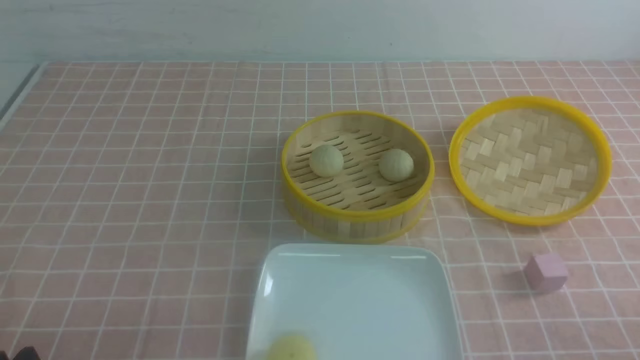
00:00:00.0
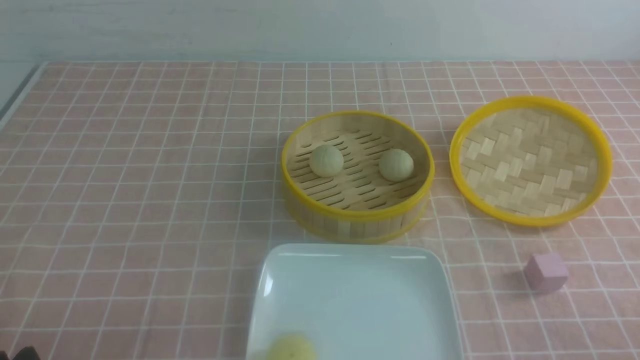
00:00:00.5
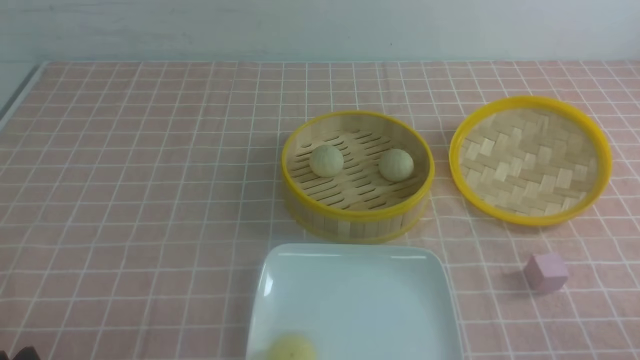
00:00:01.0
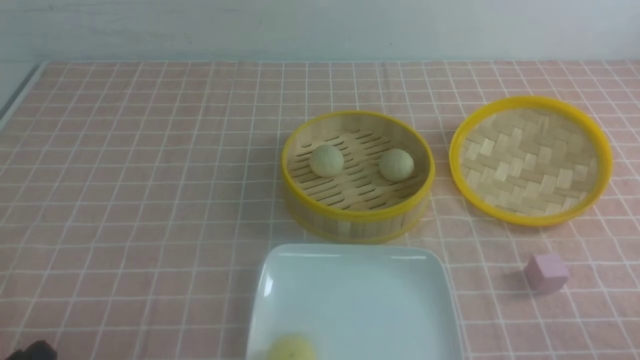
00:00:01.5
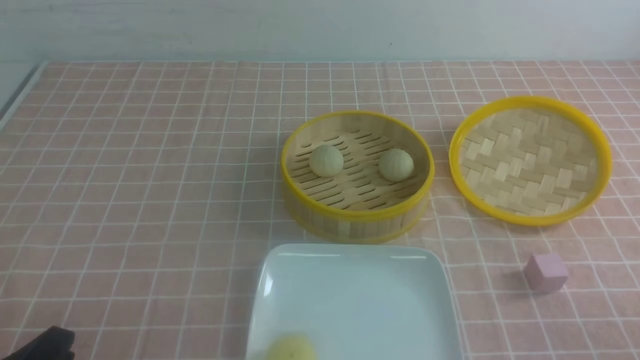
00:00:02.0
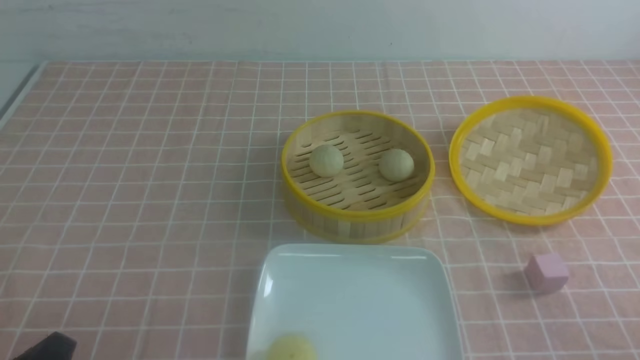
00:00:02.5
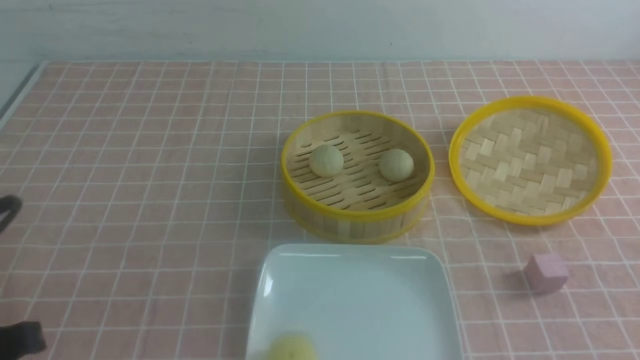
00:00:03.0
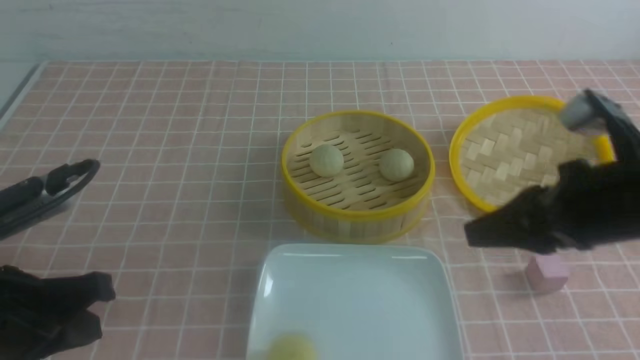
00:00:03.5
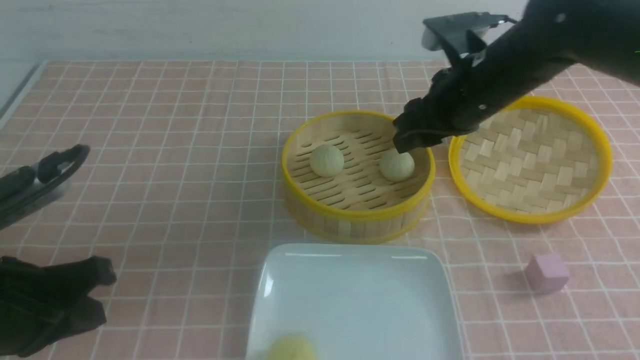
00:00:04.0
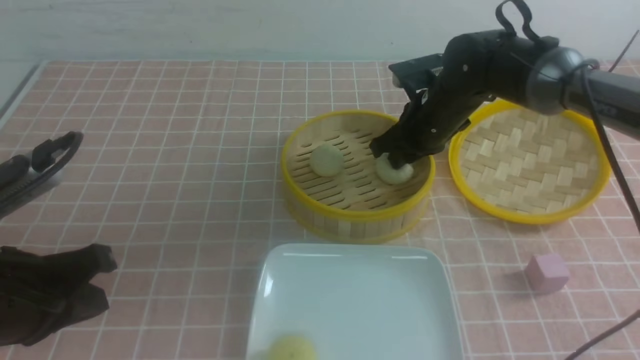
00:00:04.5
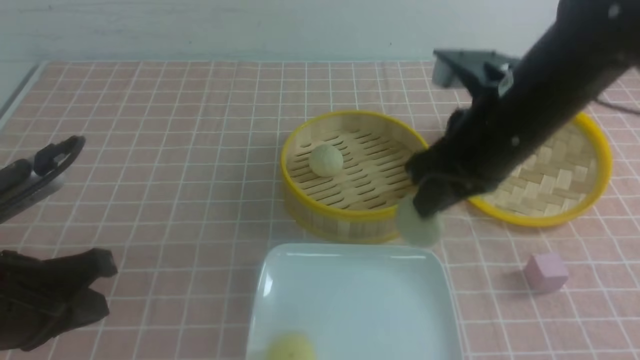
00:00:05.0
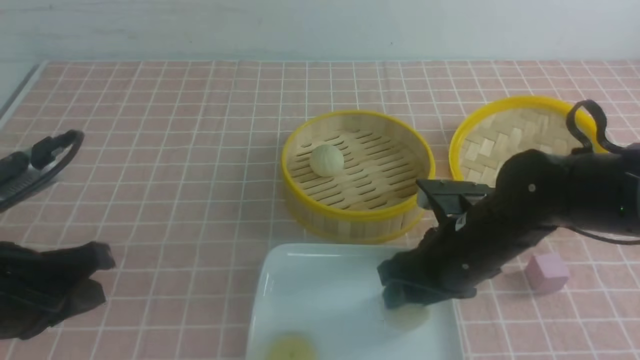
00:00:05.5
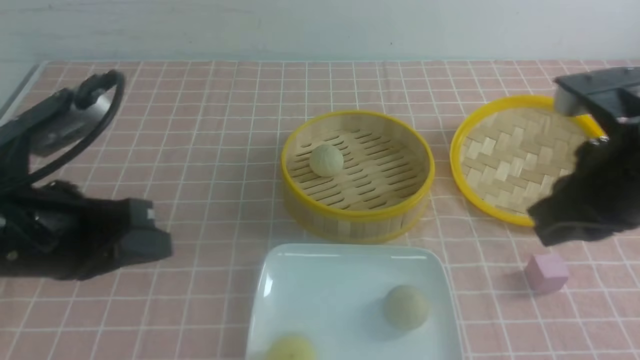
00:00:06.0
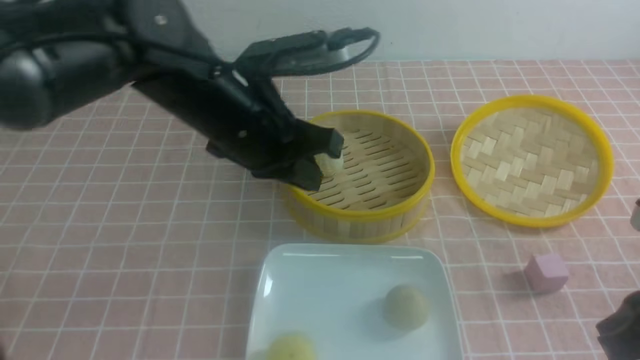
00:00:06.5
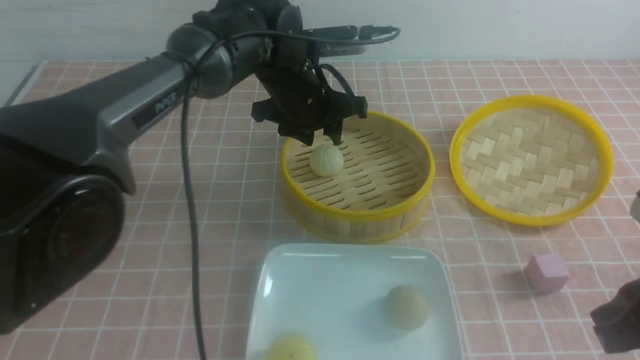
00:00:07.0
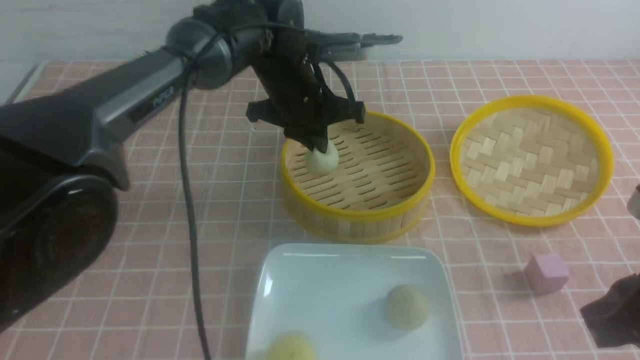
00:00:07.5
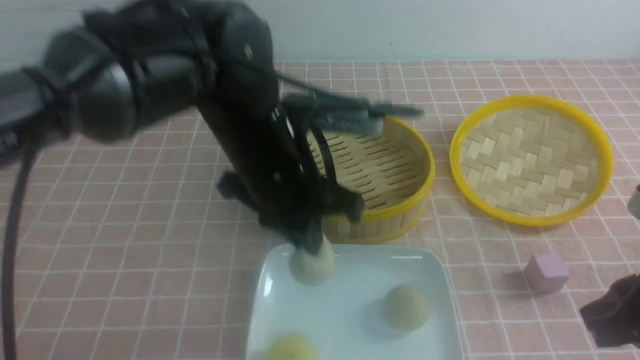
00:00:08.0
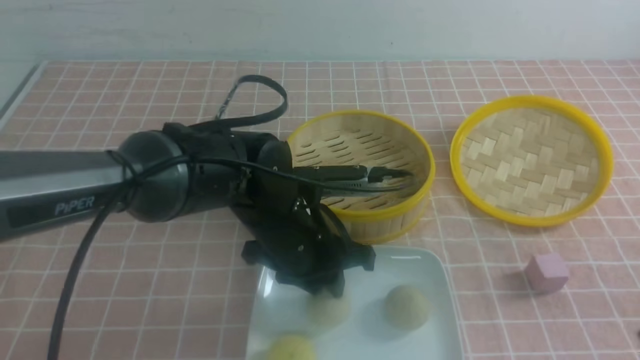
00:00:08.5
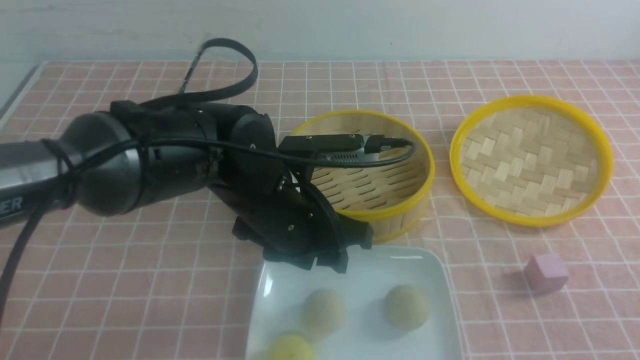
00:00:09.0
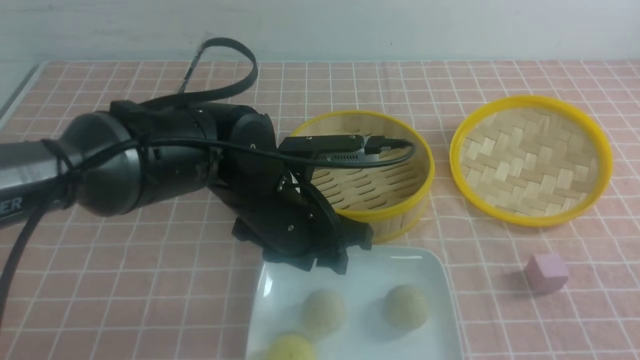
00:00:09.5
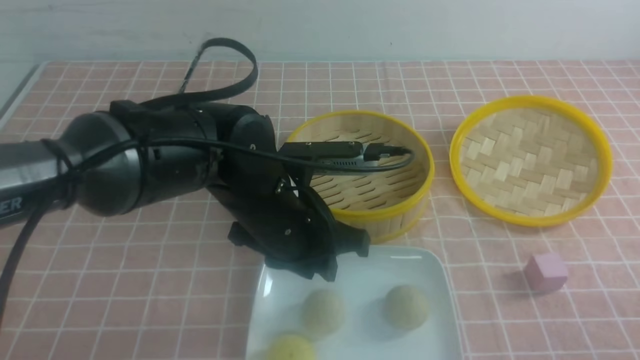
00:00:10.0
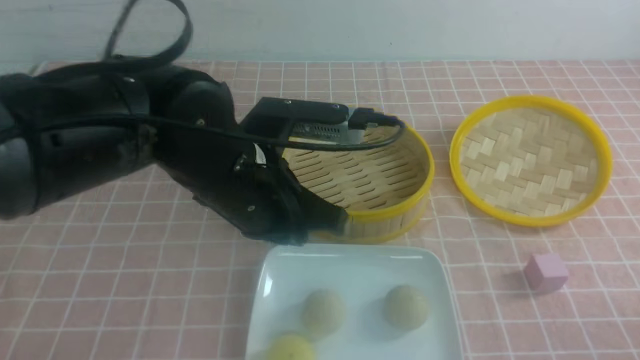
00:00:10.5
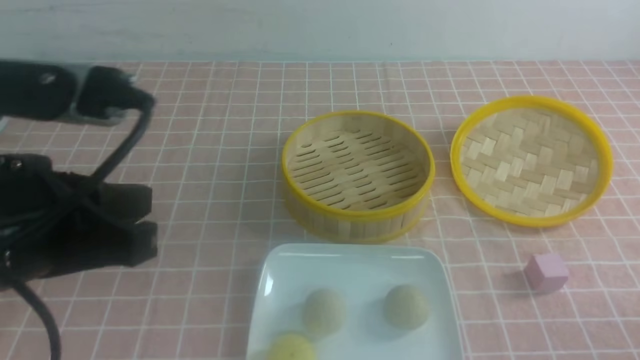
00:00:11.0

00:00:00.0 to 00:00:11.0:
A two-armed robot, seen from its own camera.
Step, 00:00:00.0 to 00:00:04.0: use the right arm to grab the steamed stuffed bun that is closest to it.
Step, 00:00:04.5 to 00:00:05.5: use the right arm to put the steamed stuffed bun into the plate.
Step, 00:00:06.0 to 00:00:07.0: use the left arm to grab the steamed stuffed bun that is closest to it.
Step, 00:00:07.5 to 00:00:08.5: use the left arm to put the steamed stuffed bun into the plate.
00:00:02.0 to 00:00:03.5: The right gripper is displaced forward, upward and to the left by roughly 25 cm, and closes, then reopens. Meanwhile the left gripper is displaced forward and upward by roughly 10 cm, and closes up.
00:00:03.5 to 00:00:05.5: The right gripper moves downward and to the left, some 15 cm, goes forward and returns, some 20 cm each way, and opens.
00:00:05.5 to 00:00:07.5: The right gripper heads backward, to the right and upward, covering about 20 cm, and closes up, while the left gripper heads forward and to the right, covering about 30 cm, and opens, then closes again.
00:00:07.5 to 00:00:09.0: The right gripper moves backward, roughly 10 cm; the left gripper is displaced backward and downward by about 15 cm, and opens up.
00:00:09.0 to 00:00:11.0: The left gripper is displaced to the left, backward and upward by about 25 cm, and closes up, while the right gripper travels downward by about 10 cm.

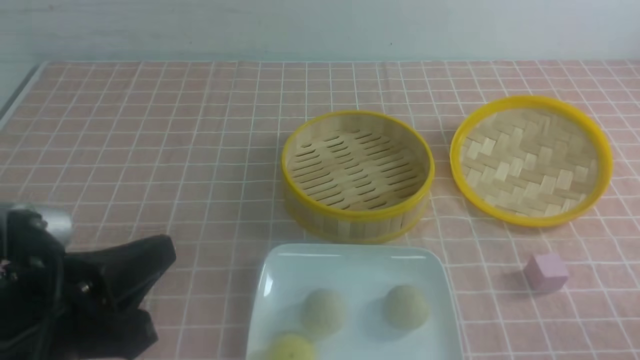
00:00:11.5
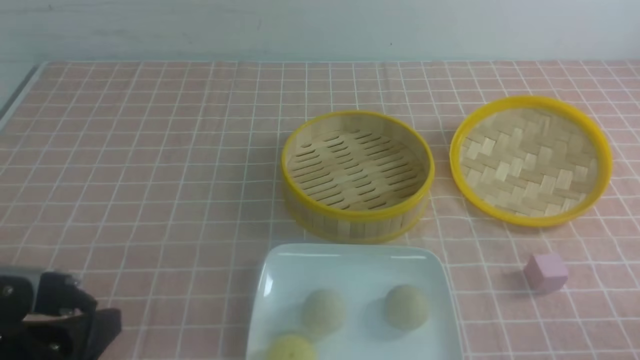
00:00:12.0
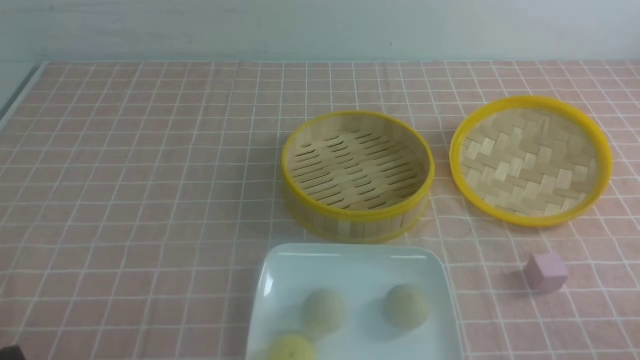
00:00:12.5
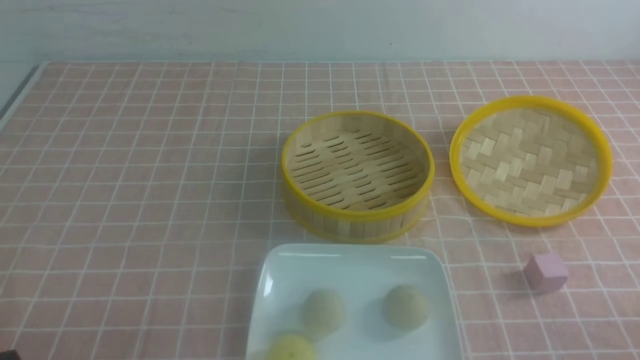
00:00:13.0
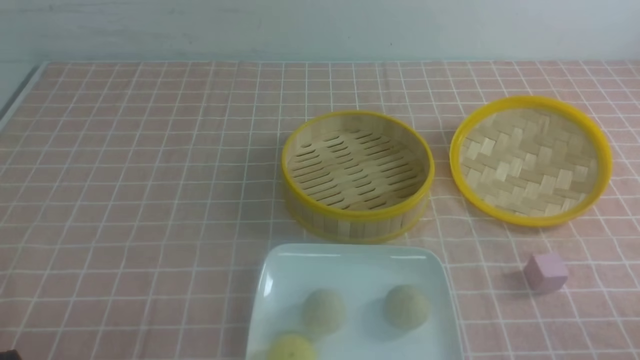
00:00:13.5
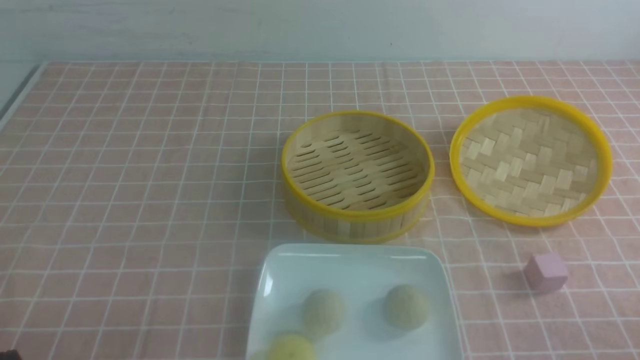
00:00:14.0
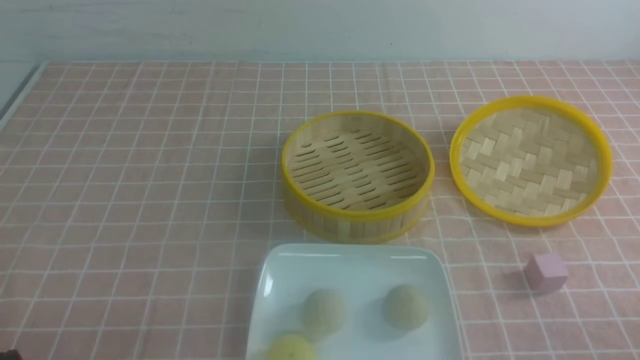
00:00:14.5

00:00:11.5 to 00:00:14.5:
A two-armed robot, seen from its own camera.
00:00:11.5 to 00:00:13.0: The left gripper shifts about 15 cm downward and to the left.
00:00:13.0 to 00:00:14.5: Both grippers stay put.

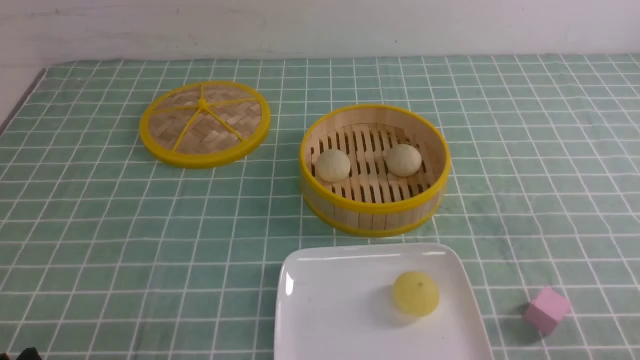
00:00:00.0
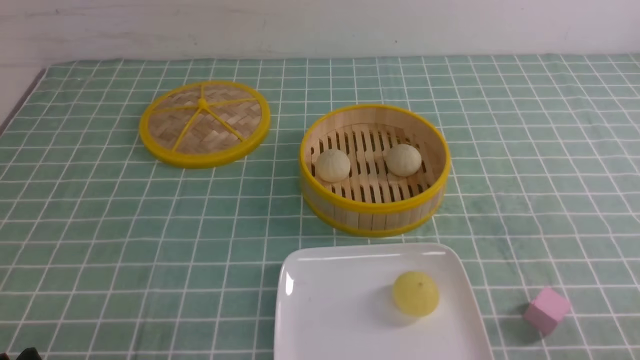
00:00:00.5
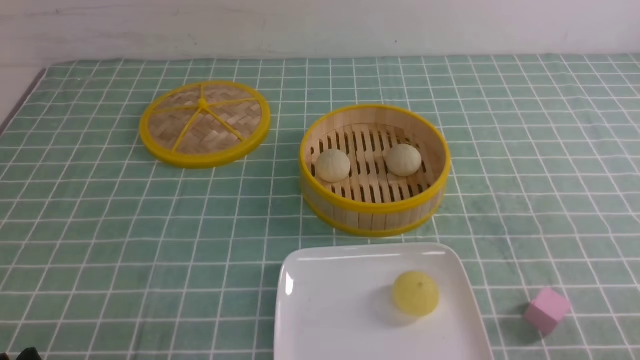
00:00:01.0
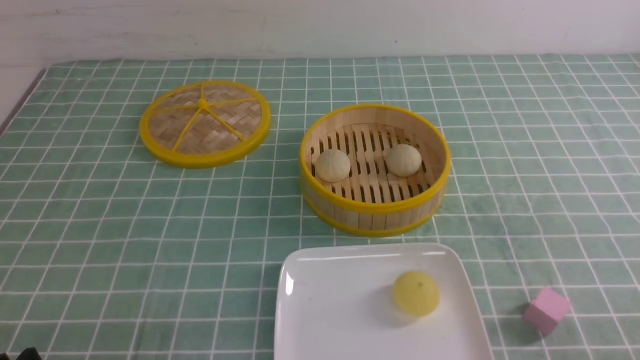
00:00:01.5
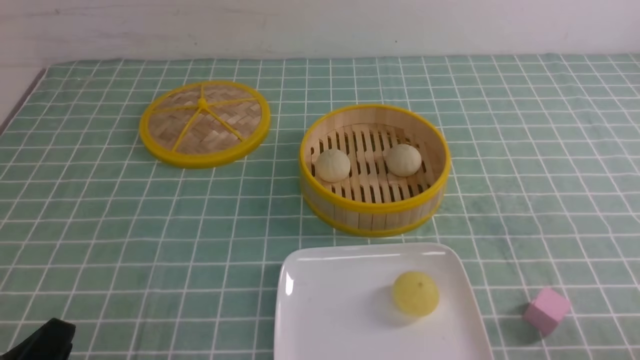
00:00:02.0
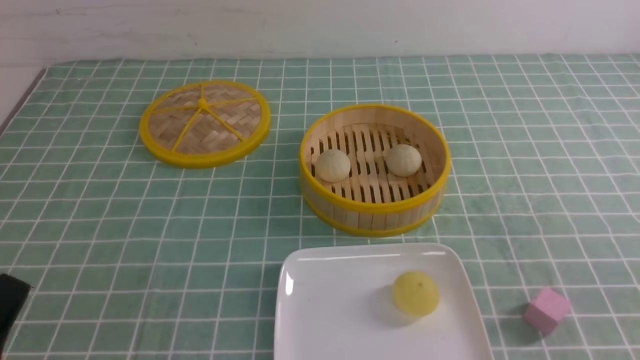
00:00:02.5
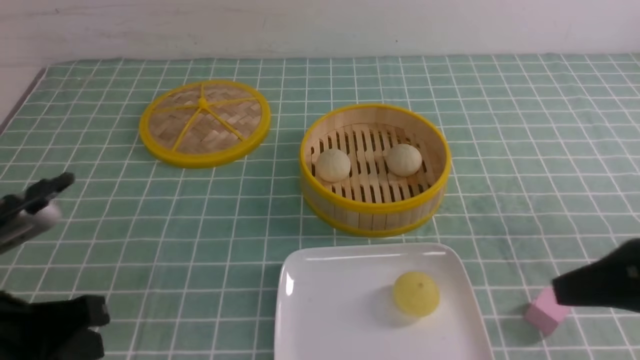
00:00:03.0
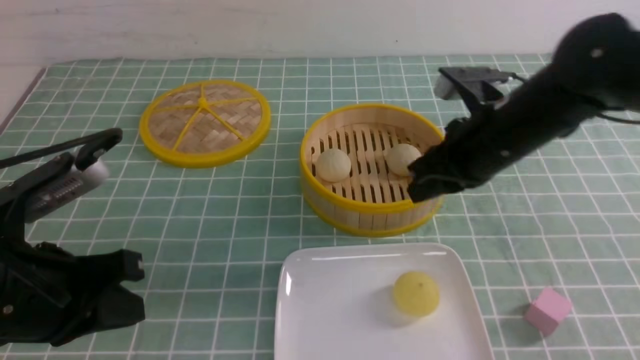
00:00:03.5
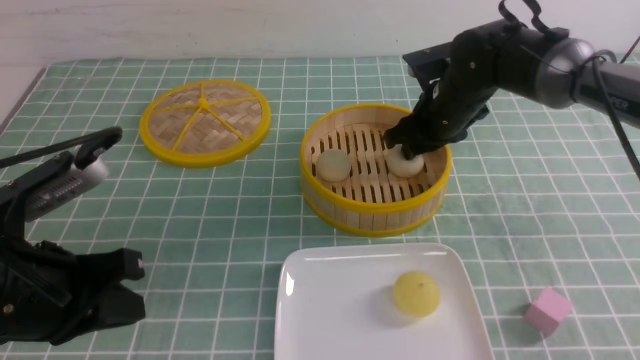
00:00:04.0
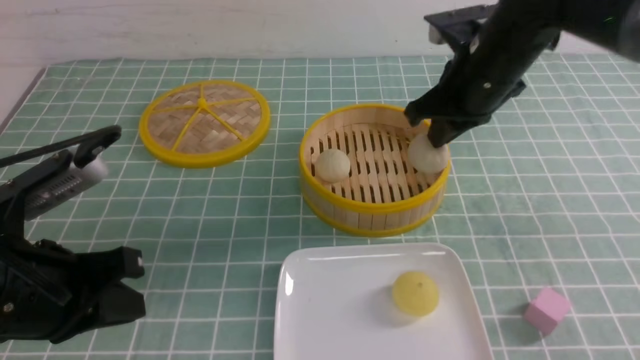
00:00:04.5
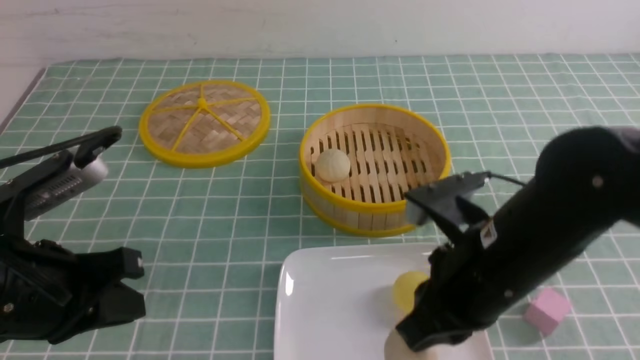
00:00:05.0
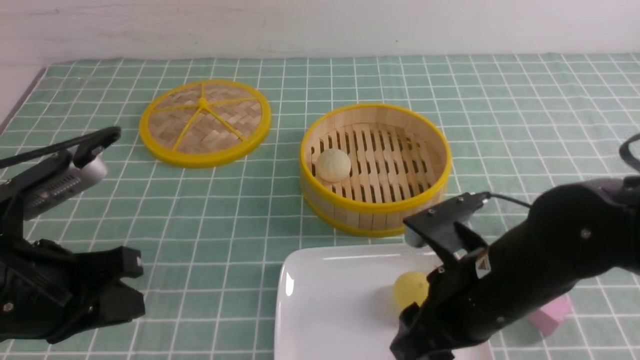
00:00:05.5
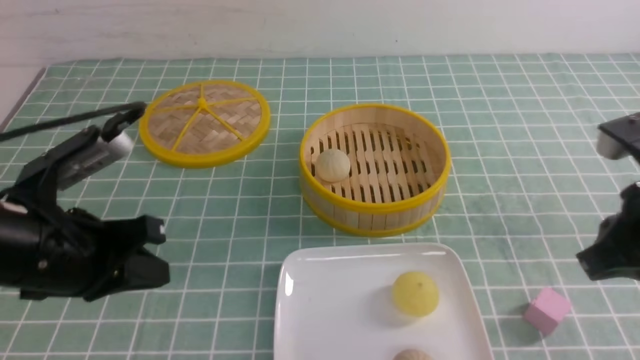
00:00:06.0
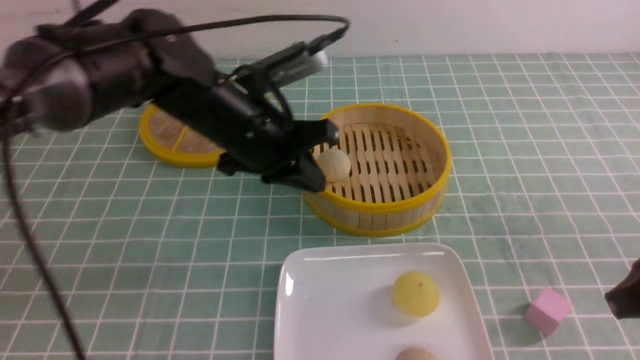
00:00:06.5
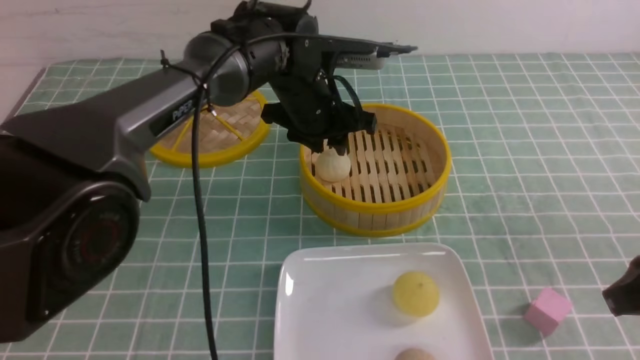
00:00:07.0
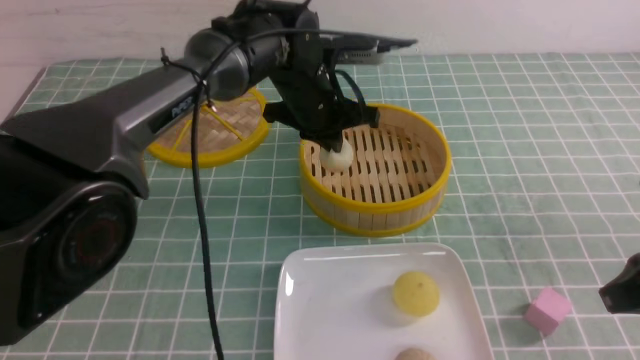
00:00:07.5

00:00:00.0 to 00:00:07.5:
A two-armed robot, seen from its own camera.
Step, 00:00:00.0 to 00:00:04.0: use the right arm to grab the steamed stuffed bun that is closest to it.
Step, 00:00:04.5 to 00:00:05.5: use the right arm to put the steamed stuffed bun into the plate.
Step, 00:00:06.0 to 00:00:07.0: use the left arm to grab the steamed stuffed bun that is closest to it.
00:00:02.0 to 00:00:04.0: The left gripper moves forward and upward, approximately 15 cm, and closes up; the right gripper is displaced forward and to the left by approximately 40 cm, and opens up.
00:00:04.0 to 00:00:05.5: The right gripper shifts roughly 25 cm backward, and closes, then opens again.
00:00:05.5 to 00:00:07.5: The right gripper moves to the right, approximately 15 cm, and closes up. The left gripper shifts some 30 cm forward and to the right, and opens, then closes again.
